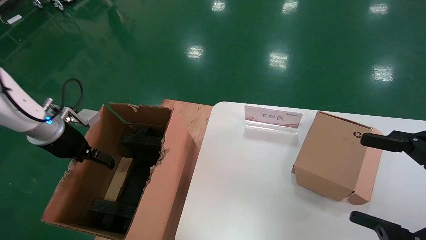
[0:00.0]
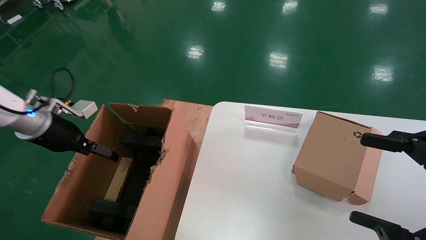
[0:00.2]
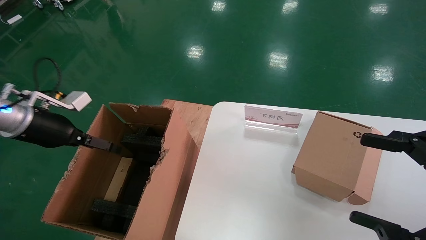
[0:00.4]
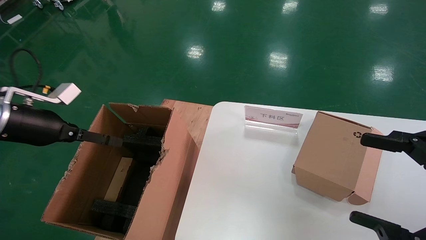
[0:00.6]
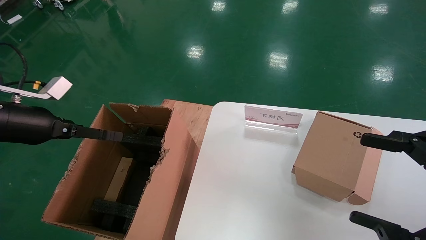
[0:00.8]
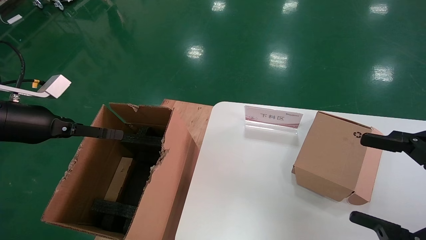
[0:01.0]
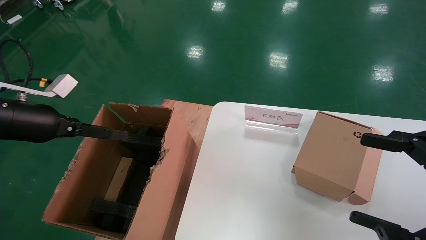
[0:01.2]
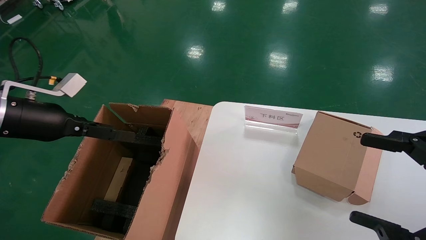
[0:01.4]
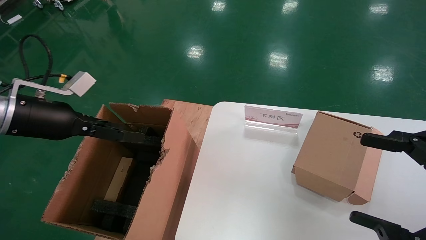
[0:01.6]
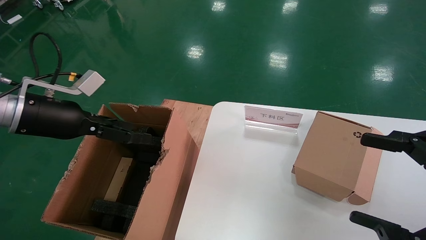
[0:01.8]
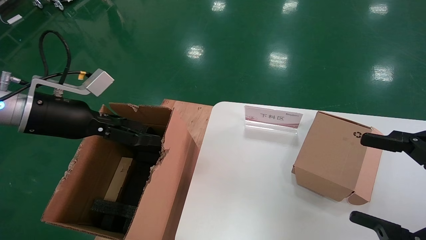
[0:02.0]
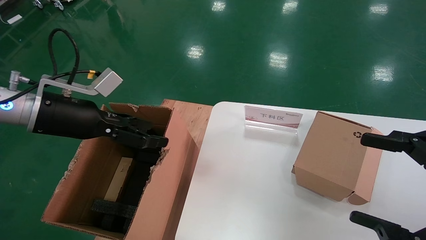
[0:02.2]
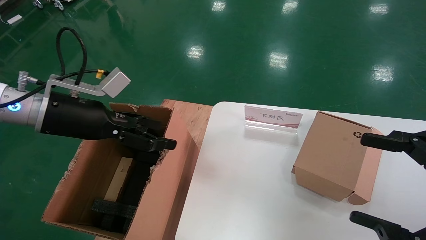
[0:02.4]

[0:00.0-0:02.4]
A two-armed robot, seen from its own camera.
Task of the whole recording: put the box on the table into the big box.
0:00.0 to 0:01.2: The left gripper goes about 10 cm backward and upward.
0:01.2 to 0:02.4: The left gripper is displaced to the right by roughly 10 cm.
